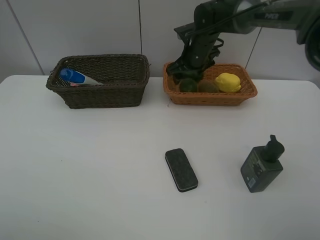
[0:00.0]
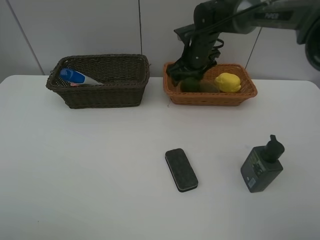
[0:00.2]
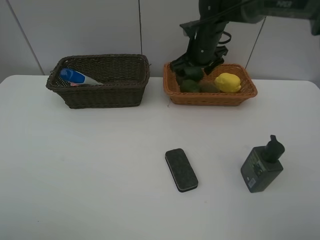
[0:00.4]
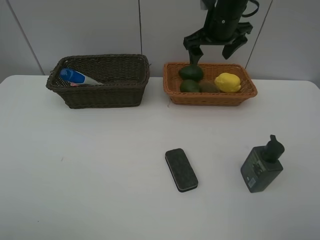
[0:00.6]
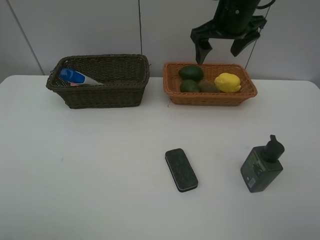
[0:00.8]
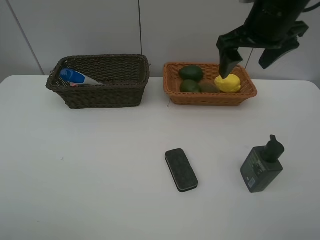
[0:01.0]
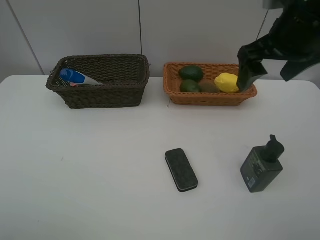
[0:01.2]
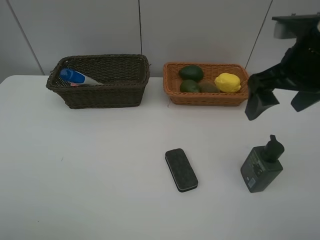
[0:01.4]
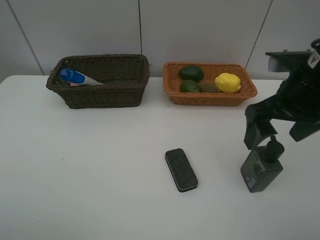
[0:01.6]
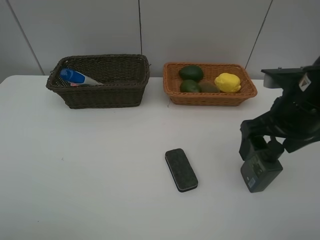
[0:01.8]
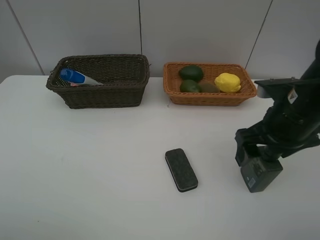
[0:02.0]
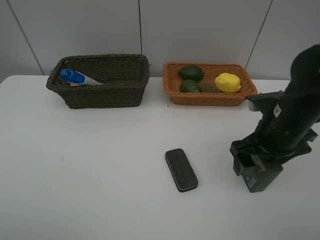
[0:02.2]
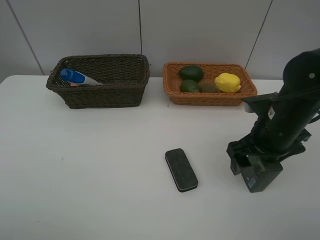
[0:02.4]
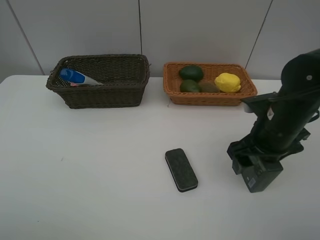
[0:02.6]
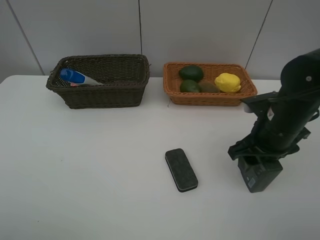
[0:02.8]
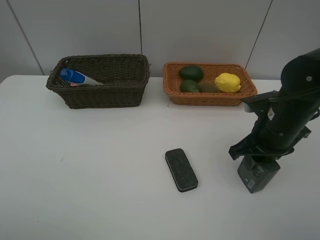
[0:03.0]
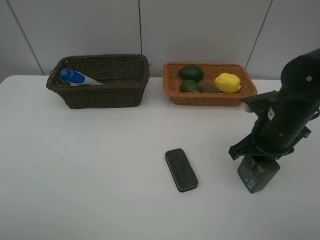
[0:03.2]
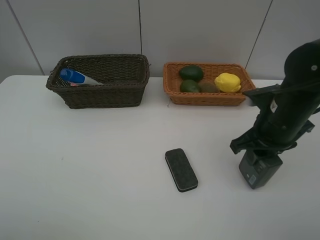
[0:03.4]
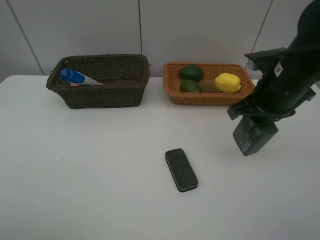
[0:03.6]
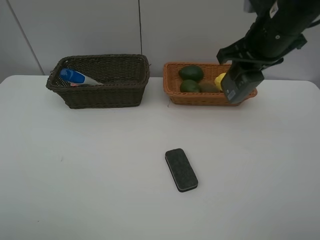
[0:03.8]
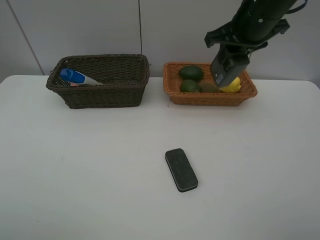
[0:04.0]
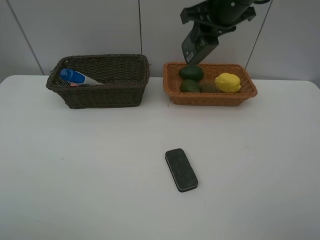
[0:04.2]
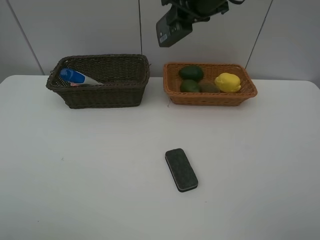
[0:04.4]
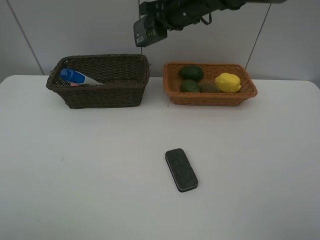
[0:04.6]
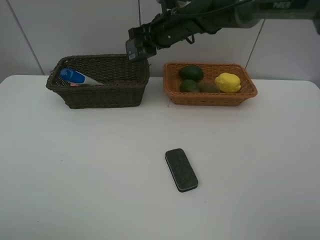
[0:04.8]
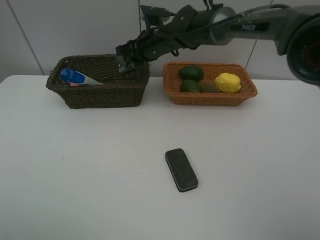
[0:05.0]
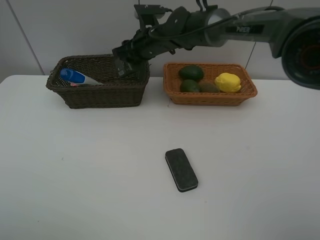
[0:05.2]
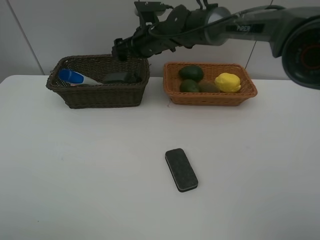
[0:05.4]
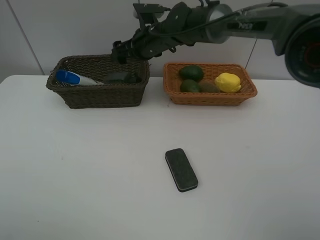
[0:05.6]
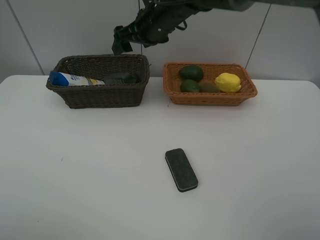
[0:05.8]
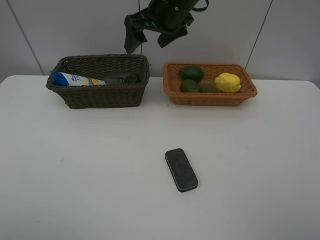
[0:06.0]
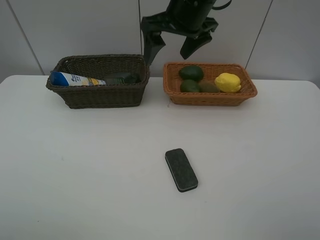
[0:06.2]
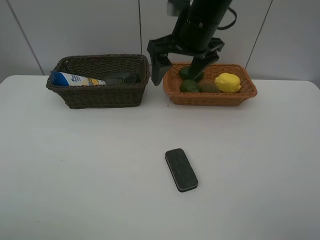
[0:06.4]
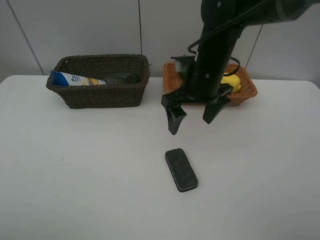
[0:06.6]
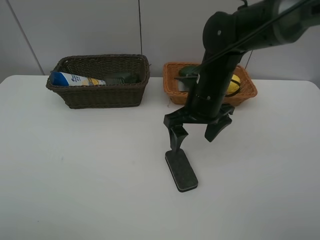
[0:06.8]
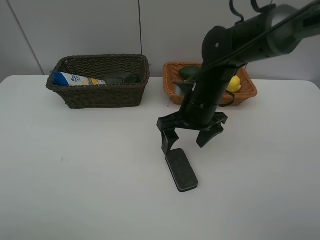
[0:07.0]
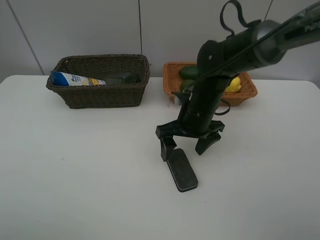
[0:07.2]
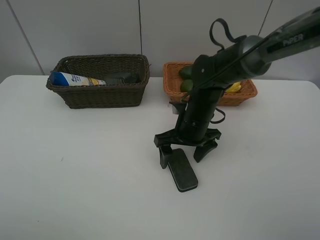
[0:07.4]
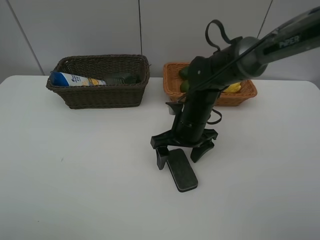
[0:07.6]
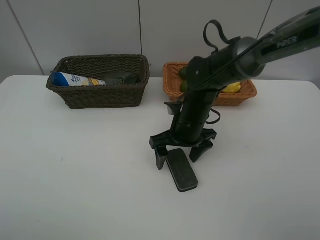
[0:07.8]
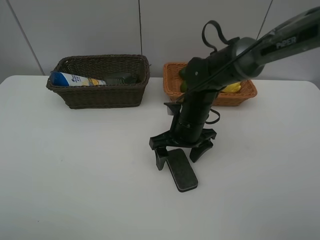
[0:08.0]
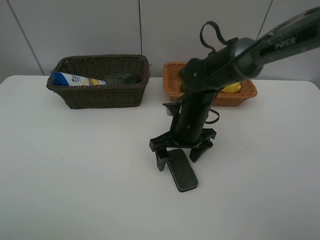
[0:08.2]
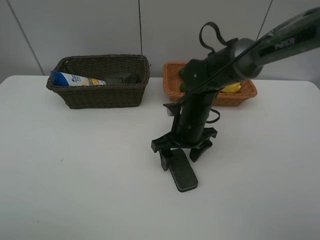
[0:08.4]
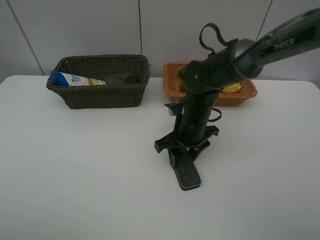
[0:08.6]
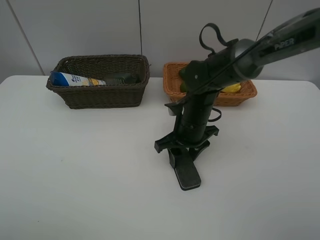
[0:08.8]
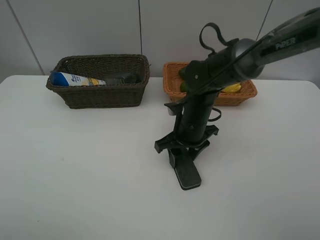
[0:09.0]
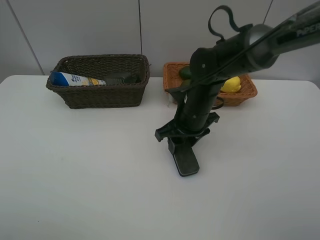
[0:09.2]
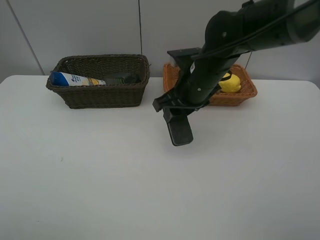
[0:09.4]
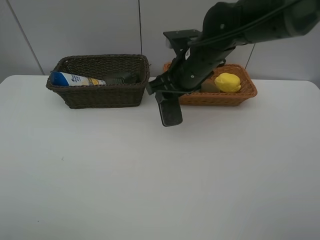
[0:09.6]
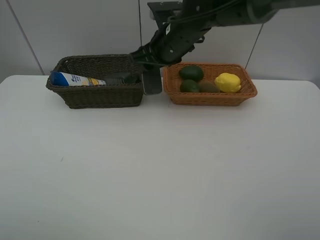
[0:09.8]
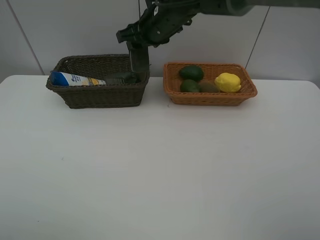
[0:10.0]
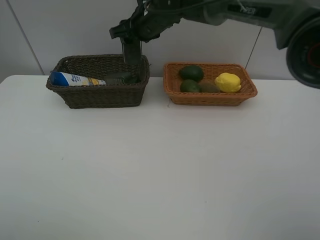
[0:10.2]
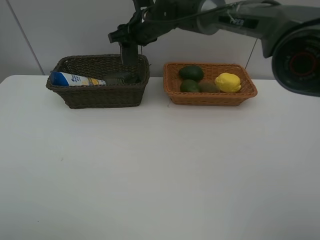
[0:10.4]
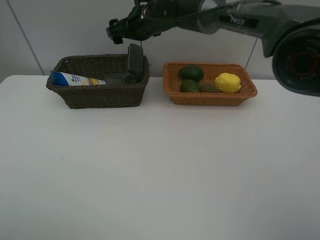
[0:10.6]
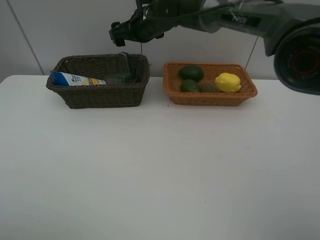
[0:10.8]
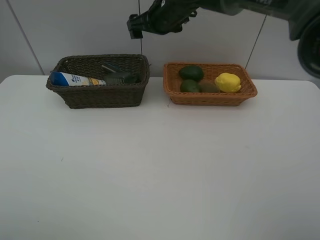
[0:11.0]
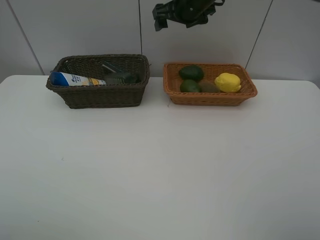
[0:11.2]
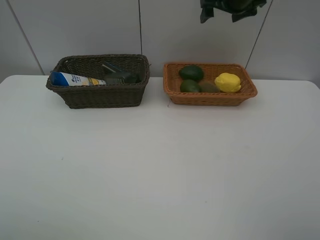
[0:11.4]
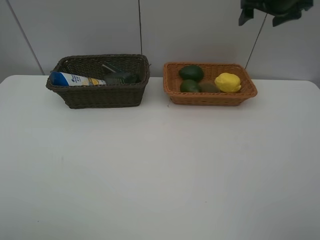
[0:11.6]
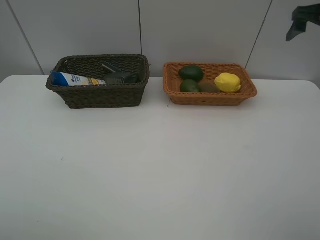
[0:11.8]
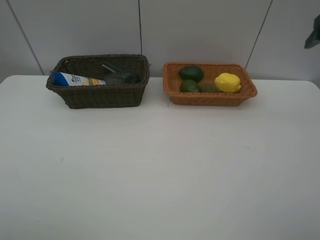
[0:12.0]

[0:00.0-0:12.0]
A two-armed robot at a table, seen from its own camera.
Task of the whole recording: Place multiple objects separately in different baskets.
Step, 0:00.6 to 0:03.4: Pick up the hard facial cleanser with right gripper.
Step, 0:03.6 to 0:05.6: Place the hard facial cleanser in the dark basket with right gripper.
Step, 0:05.8 to 0:09.2: Pick up blackboard eraser with right gripper.
Step, 0:09.4 to 0:10.8: Place the blackboard eraser in the dark basket with right gripper.
0:00.0 to 0:01.6: The right gripper moves backward and to the right, some 30 cm.
0:01.6 to 0:03.0: The right gripper heads downward, covering approximately 10 cm, and closes up.
0:03.0 to 0:04.4: The right gripper travels forward, upward and to the left by approximately 25 cm.
0:04.4 to 0:06.0: The right gripper travels to the left by some 5 cm, goes downward and returns, about 10 cm each way, and opens its fingers.
0:06.0 to 0:07.6: The right gripper is displaced downward and backward by roughly 20 cm.
0:07.6 to 0:09.0: The right gripper closes up.
0:09.0 to 0:10.4: The right gripper travels forward, upward and to the left by about 25 cm.
0:10.4 to 0:12.0: The right gripper travels to the right by approximately 40 cm, and opens its fingers.

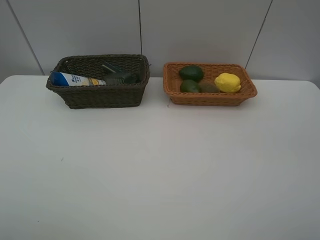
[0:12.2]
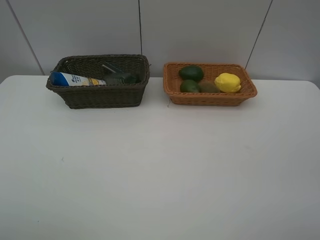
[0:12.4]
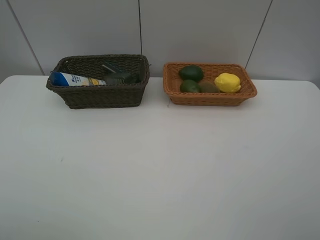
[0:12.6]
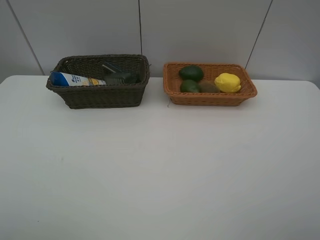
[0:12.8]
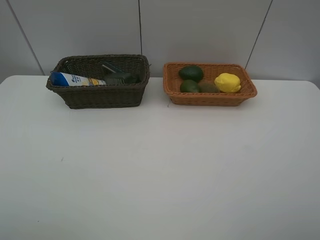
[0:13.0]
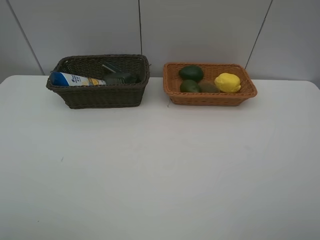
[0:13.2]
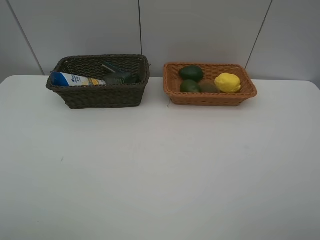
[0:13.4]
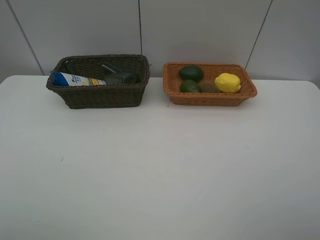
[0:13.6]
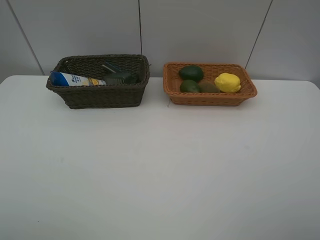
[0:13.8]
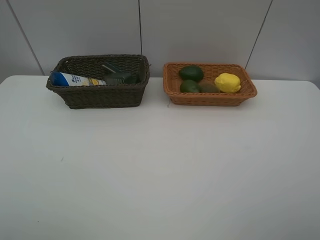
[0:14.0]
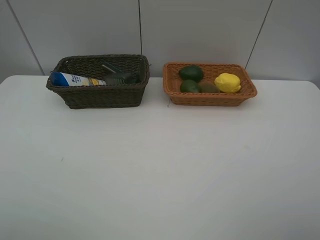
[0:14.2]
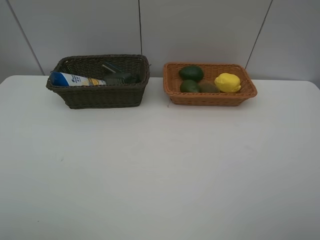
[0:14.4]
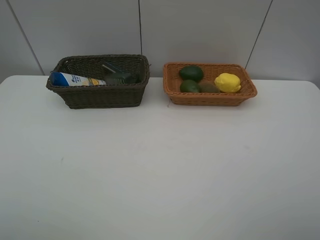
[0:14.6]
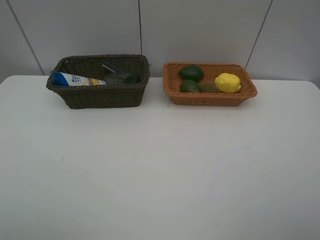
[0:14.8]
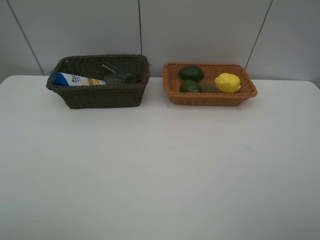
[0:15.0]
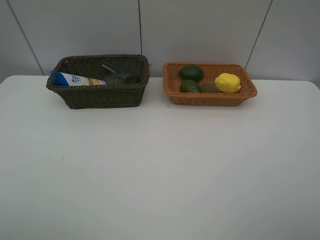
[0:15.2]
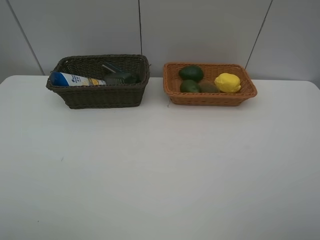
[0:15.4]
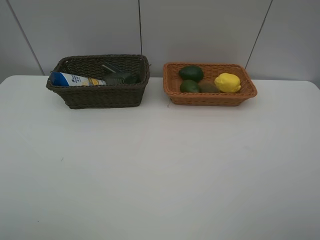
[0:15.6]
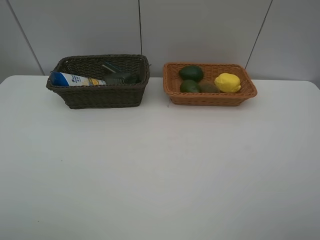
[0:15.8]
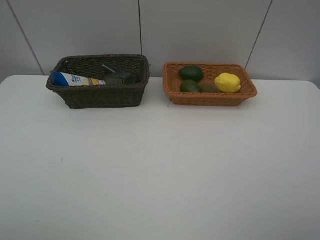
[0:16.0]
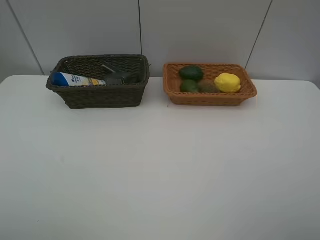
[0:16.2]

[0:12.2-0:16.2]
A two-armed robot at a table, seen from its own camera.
Task of the whole recording: Place multiple objects separately in different baskets.
0:13.6 to 0:16.2: Both grippers stay about where they are.

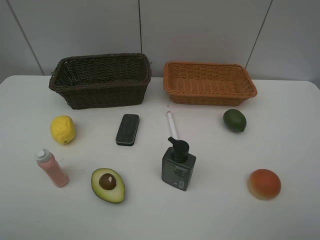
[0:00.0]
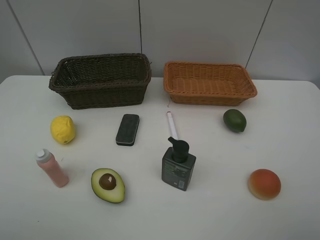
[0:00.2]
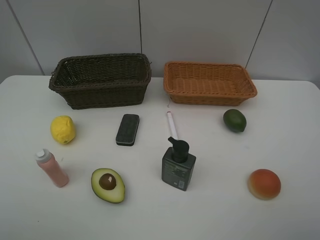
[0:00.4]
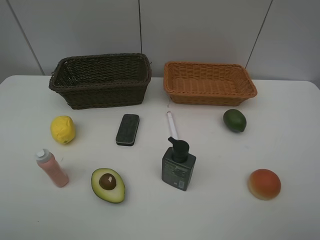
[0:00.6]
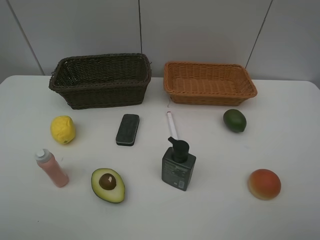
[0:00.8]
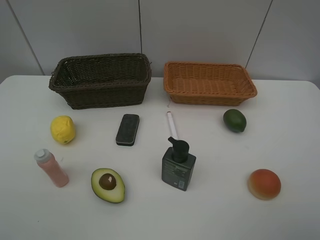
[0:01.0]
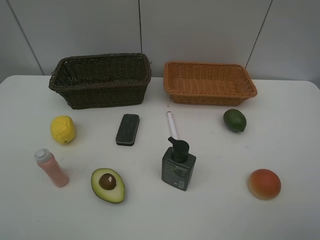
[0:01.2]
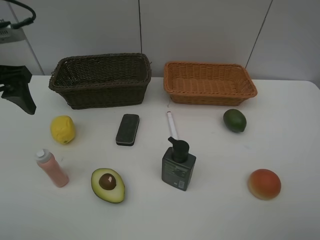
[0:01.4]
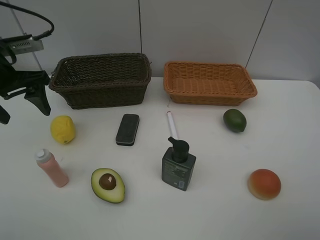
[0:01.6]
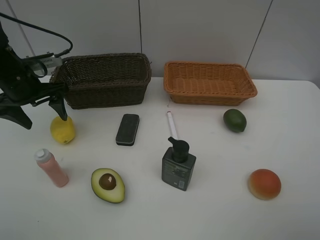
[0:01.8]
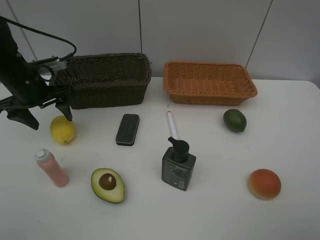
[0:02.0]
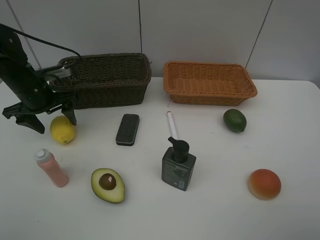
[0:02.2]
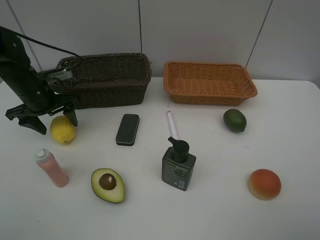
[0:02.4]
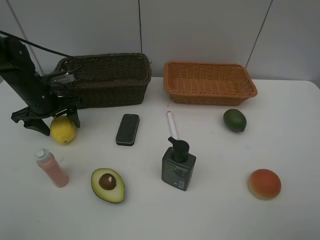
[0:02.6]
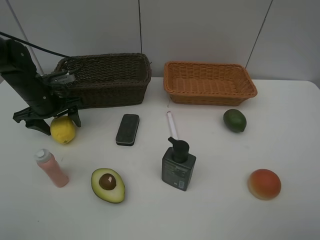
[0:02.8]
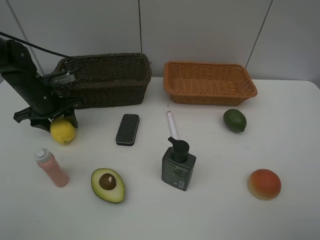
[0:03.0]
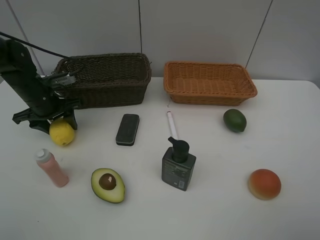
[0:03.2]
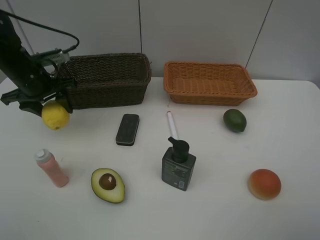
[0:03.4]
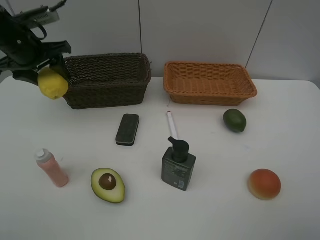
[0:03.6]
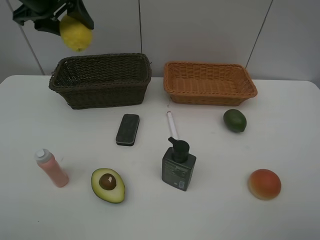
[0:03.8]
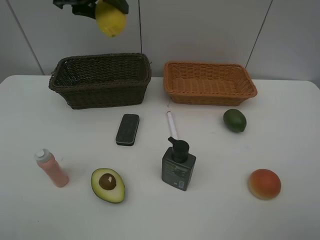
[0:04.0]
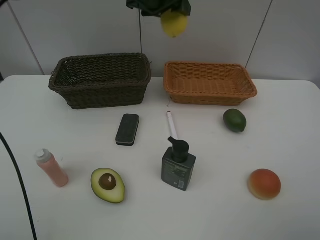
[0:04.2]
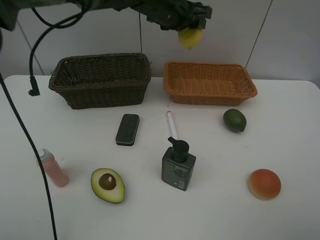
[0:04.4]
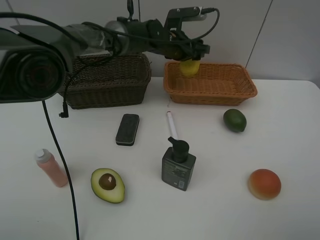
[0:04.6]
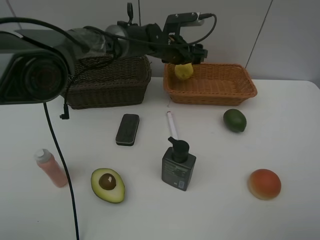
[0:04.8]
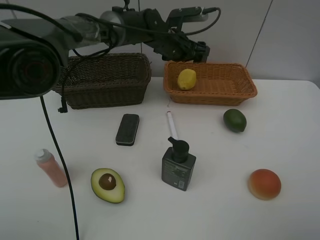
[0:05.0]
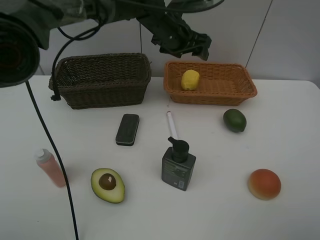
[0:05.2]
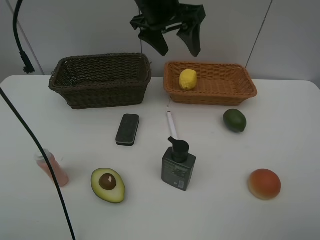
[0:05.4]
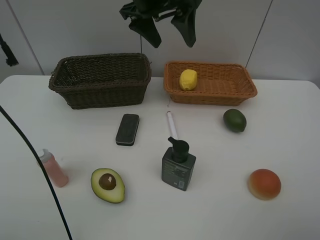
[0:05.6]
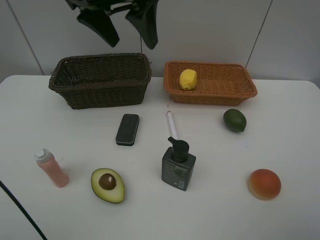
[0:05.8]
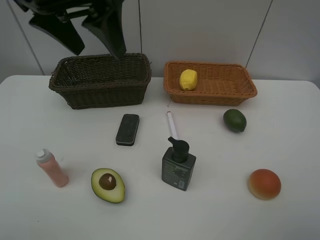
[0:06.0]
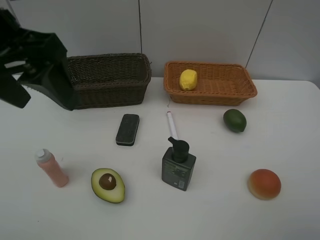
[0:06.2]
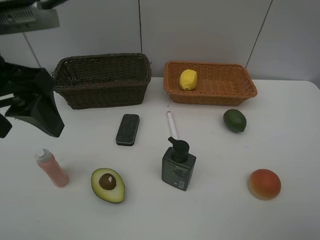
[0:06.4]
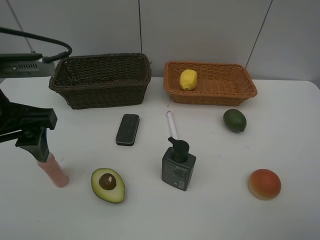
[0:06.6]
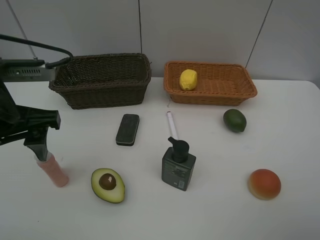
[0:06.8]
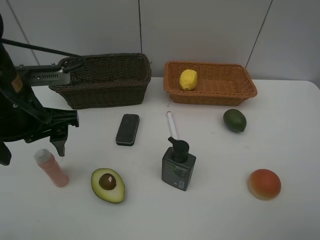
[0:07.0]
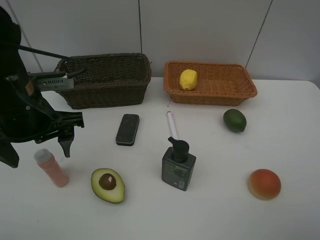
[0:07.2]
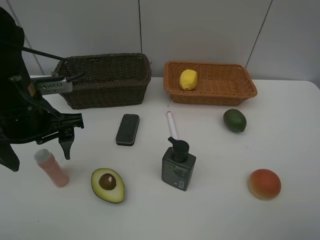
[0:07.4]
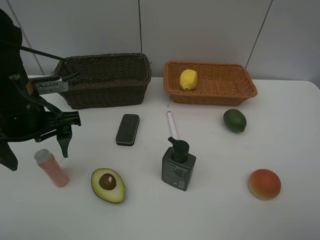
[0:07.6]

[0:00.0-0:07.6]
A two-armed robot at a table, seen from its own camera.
Task of the whole recording: Place multiple objects separately in different baskets.
Step, 0:00.0 to 0:03.2: Pick up the lemon with left gripper.
Step, 0:03.4 to 0:04.8: Place the lemon in the light basket with left gripper.
0:00.0 to 0:01.6: The left gripper heads forward, covering some 30 cm.
0:01.6 to 0:03.0: The left gripper heads downward and forward, covering about 15 cm, and closes.
0:03.0 to 0:04.6: The left gripper goes roughly 30 cm to the right.
0:04.6 to 0:06.0: The left gripper goes roughly 35 cm backward, upward and to the left.
0:06.0 to 0:07.6: The left gripper goes approximately 15 cm downward.
